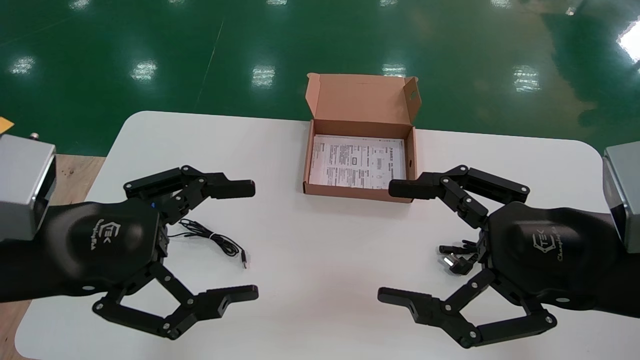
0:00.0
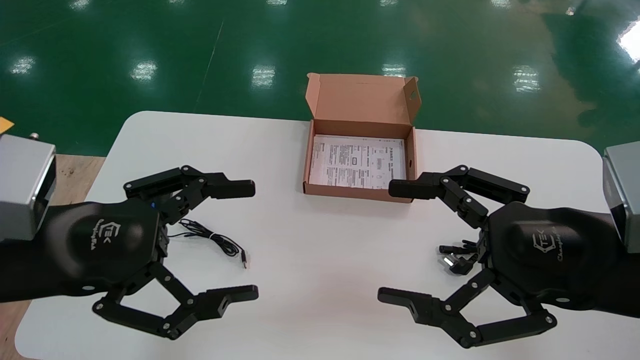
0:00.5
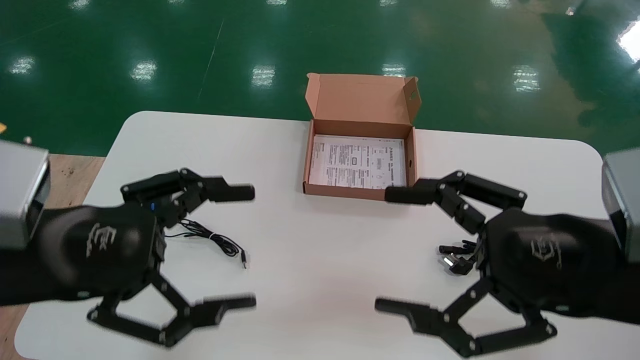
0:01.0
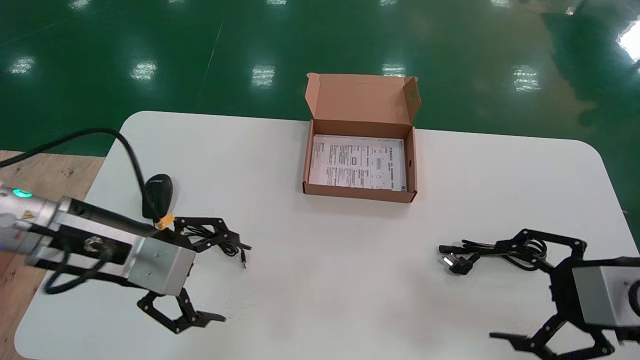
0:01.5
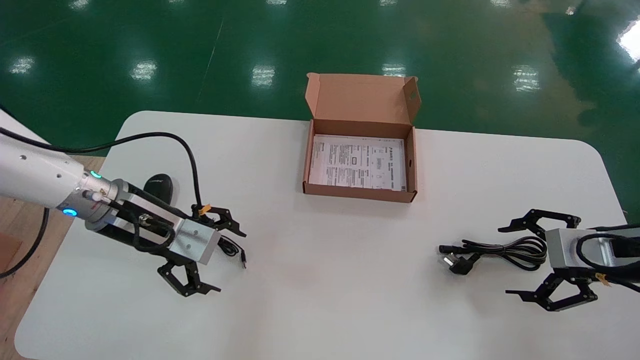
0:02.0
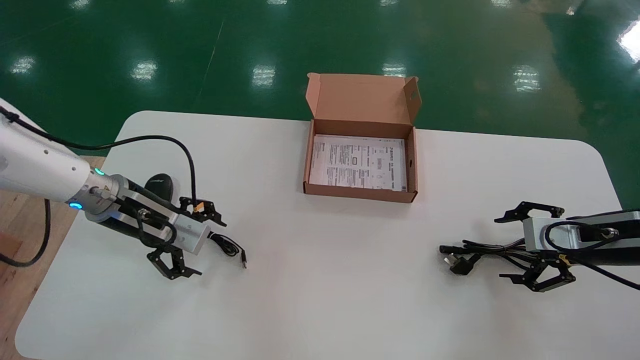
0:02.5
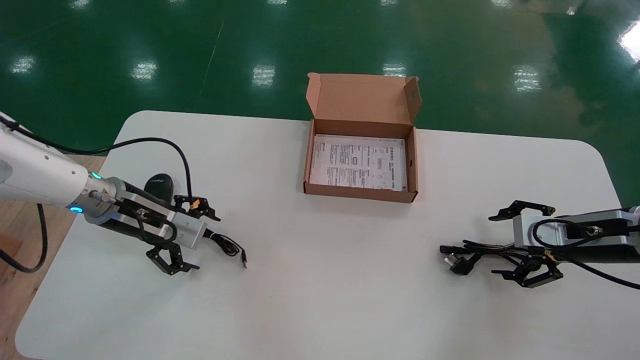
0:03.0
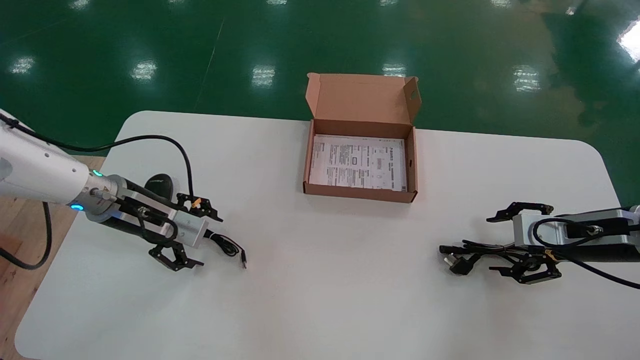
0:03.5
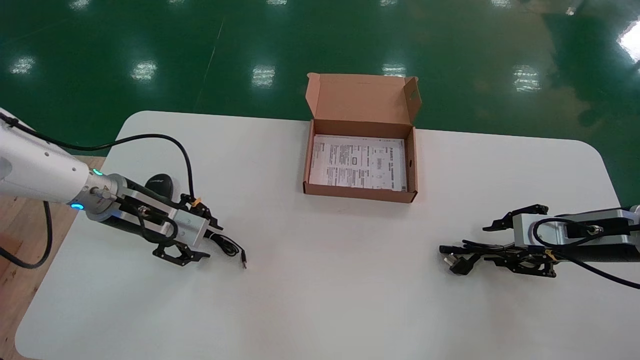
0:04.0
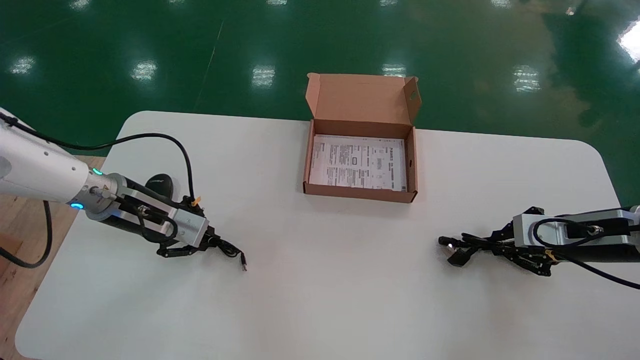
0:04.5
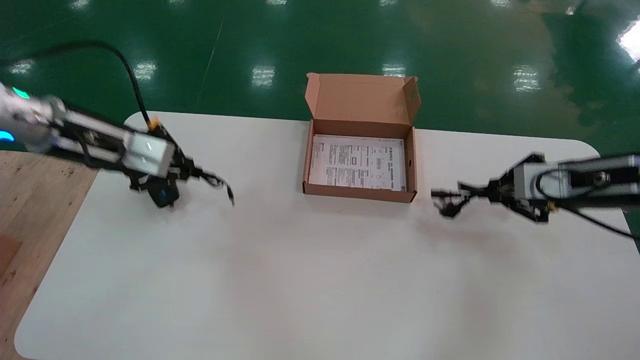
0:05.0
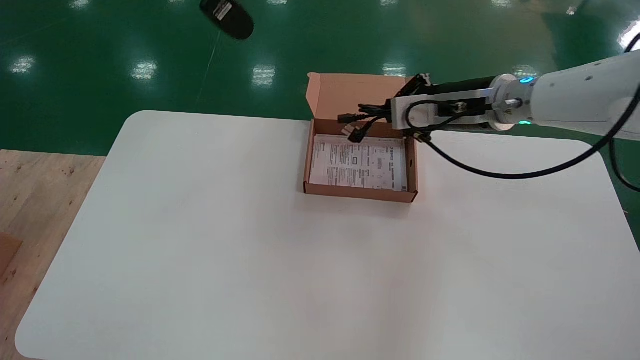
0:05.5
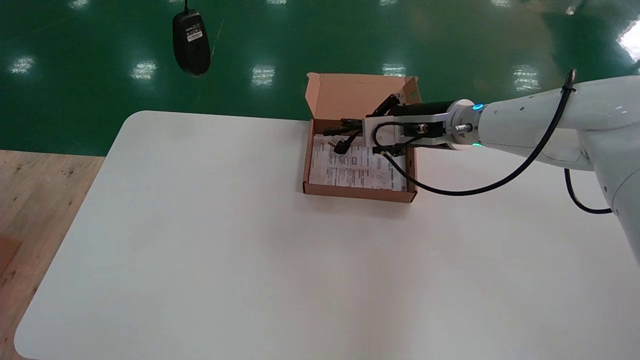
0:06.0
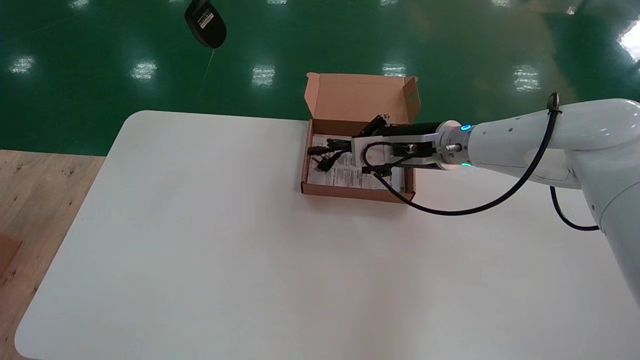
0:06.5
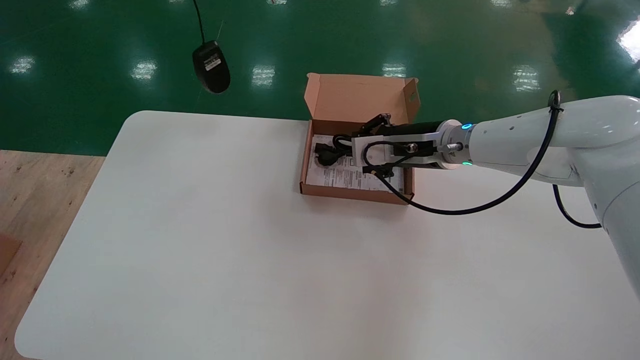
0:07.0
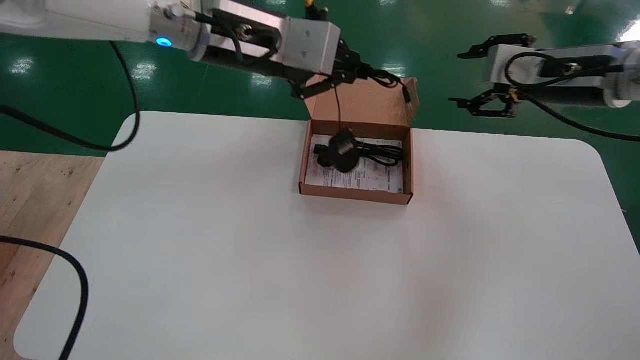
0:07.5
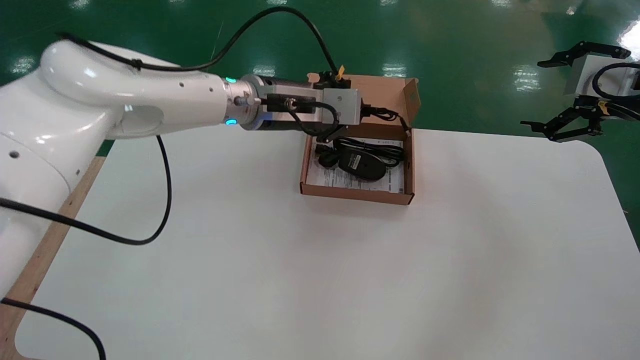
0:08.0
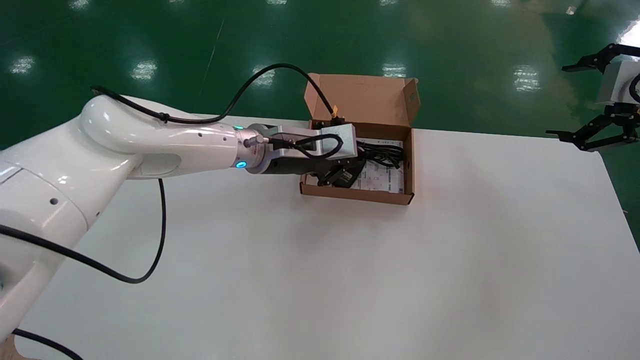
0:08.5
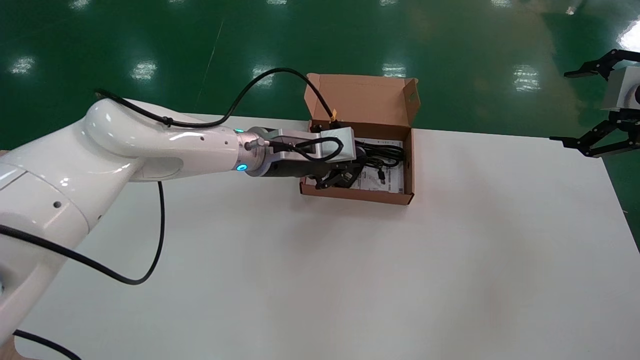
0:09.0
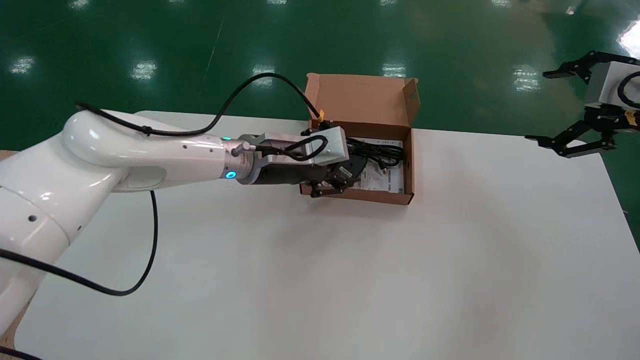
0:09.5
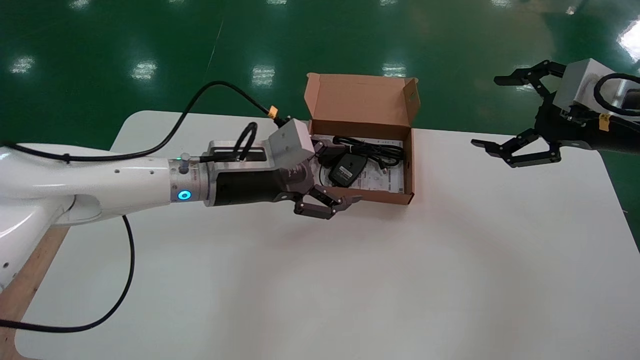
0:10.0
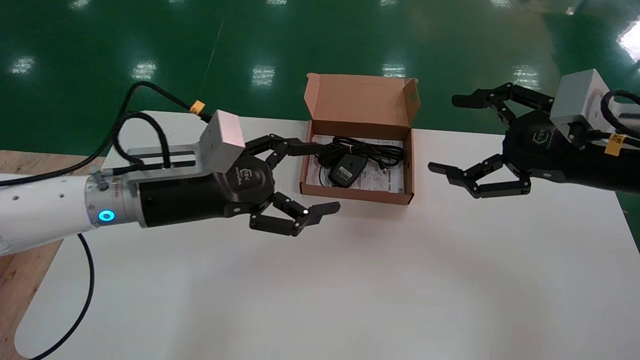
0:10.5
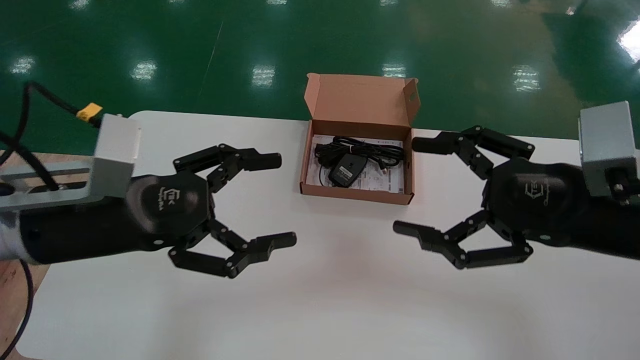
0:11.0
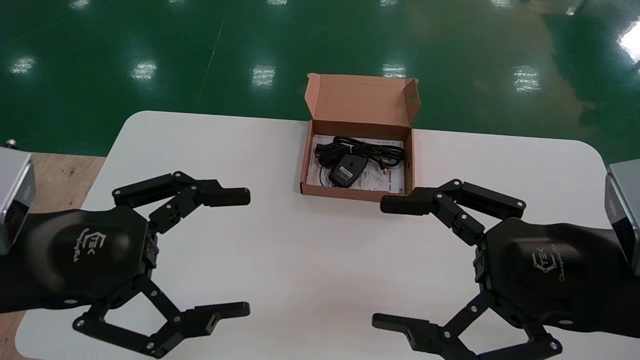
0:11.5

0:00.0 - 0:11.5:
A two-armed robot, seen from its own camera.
Step, 0:01.5 - 0:04.5: Simultaneously pick up the mouse and power cord from the accessory packaging area.
Step, 0:05.0 - 0:09.5: Place the mouse and power cord into the box.
0:00.0 - 0:02.0: The left gripper goes approximately 15 cm forward. Meanwhile the right gripper shifts about 20 cm to the right, forward and downward.
0:02.0 - 0:04.0: The left gripper changes place by about 5 cm, and closes its fingers. Meanwhile the right gripper heads forward, covering about 5 cm, and closes.
0:04.0 - 0:06.0: The left gripper shifts roughly 35 cm upward, and closes up; the right gripper travels to the left, upward and forward by about 25 cm, and closes.
0:06.0 - 0:07.5: The left gripper shifts some 20 cm to the right, downward and forward, while the right gripper heads to the right, upward and backward, covering about 15 cm, and opens its fingers.
0:07.5 - 0:09.5: The right gripper shifts some 10 cm to the right and backward, and opens up. The left gripper moves downward, about 20 cm.
0:09.5 - 0:11.5: The left gripper travels backward and to the left by approximately 30 cm, and opens, while the right gripper travels to the left, backward and downward by some 25 cm.

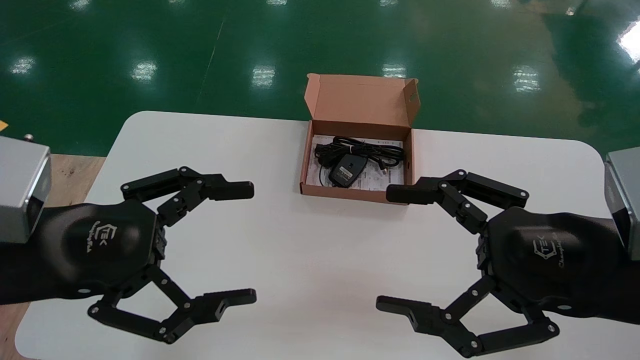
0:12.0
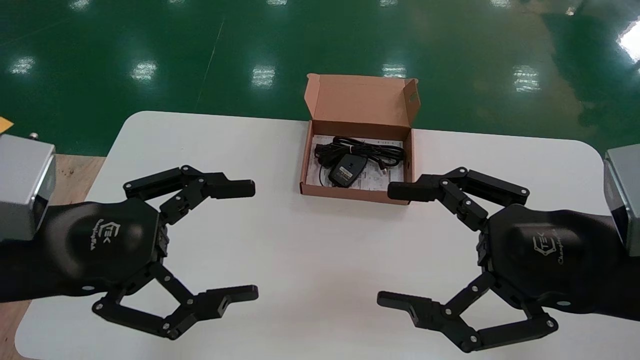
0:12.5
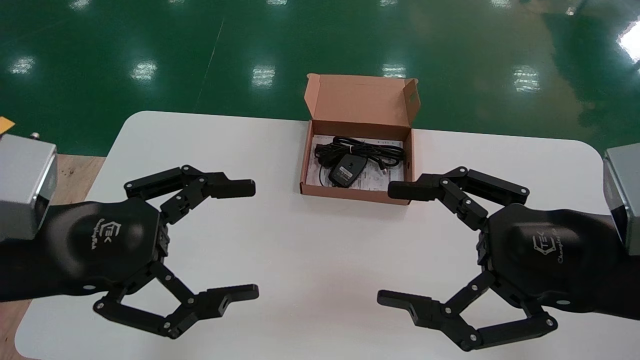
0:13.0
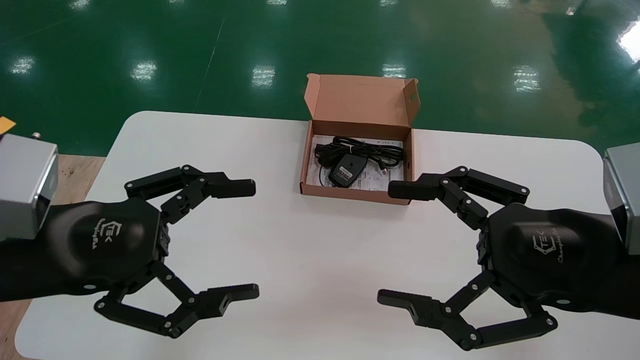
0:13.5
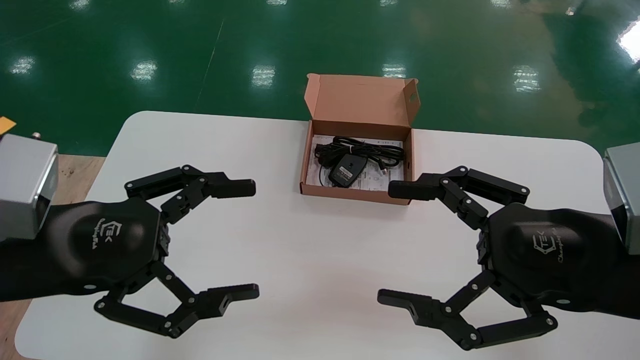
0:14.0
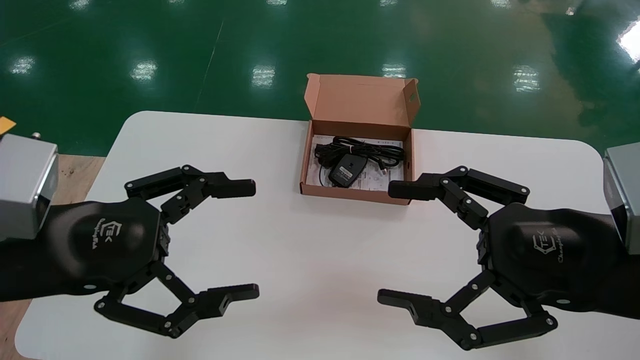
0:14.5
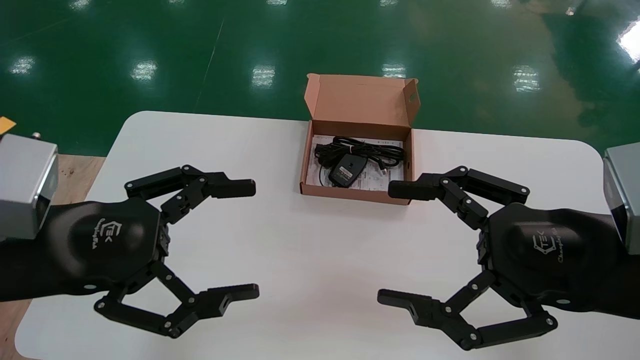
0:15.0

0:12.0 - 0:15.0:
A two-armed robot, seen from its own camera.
0:12.0 - 0:15.0: Both grippers stay put.
